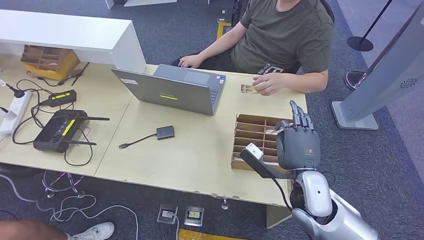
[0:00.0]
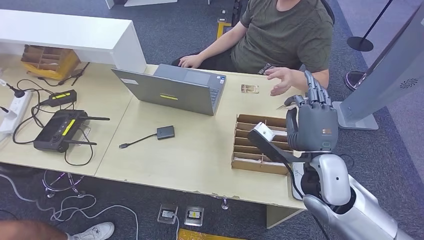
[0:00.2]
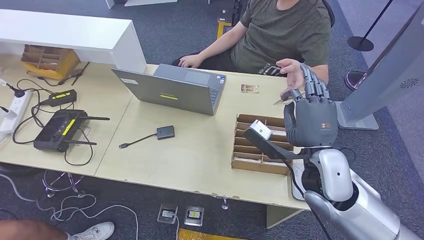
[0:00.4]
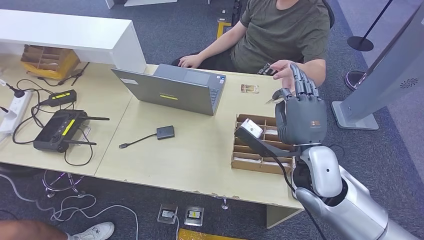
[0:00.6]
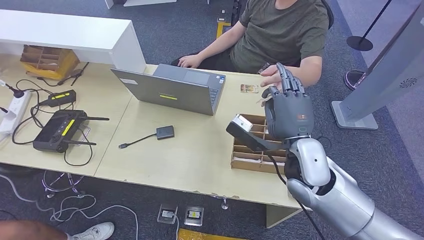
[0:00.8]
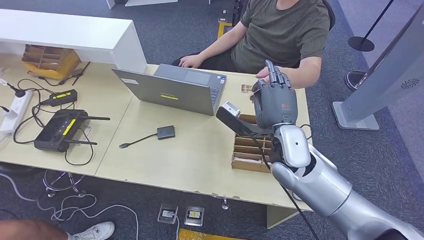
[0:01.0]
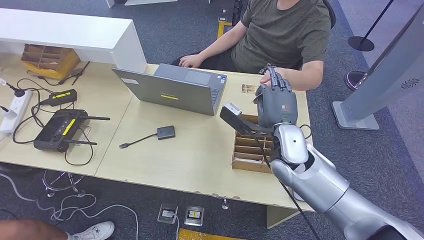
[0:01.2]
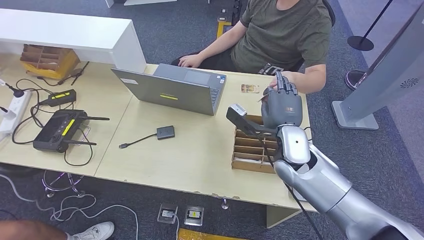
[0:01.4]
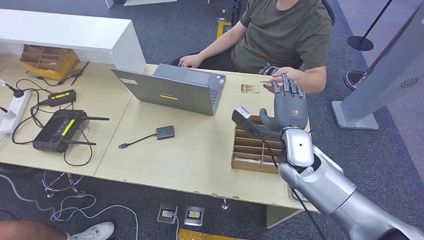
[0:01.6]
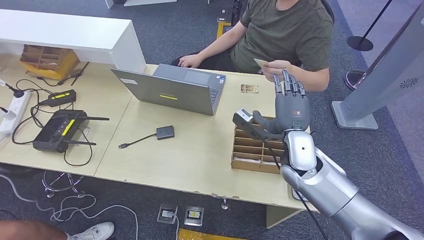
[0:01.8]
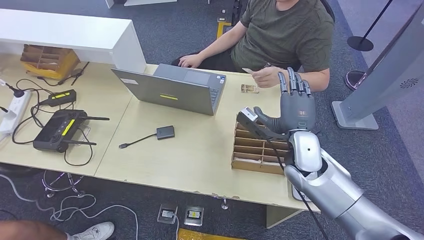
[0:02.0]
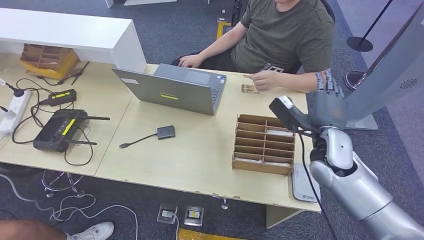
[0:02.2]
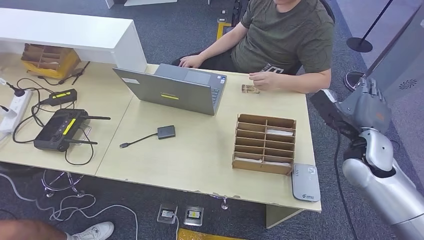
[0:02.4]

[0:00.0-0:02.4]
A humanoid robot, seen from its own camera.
Step, 0:00.4 to 0:02.4: Hand the room key to the person.
0:00.0 to 0:01.2: The right hand is displaced forward, to the left and upward by some 10 cm.
0:01.2 to 0:02.4: The right hand moves to the right, some 20 cm.

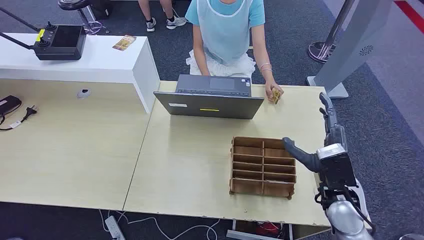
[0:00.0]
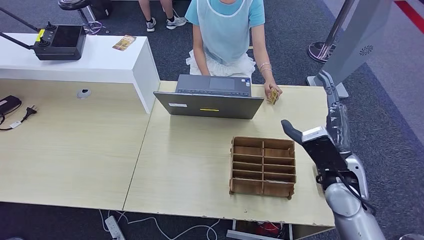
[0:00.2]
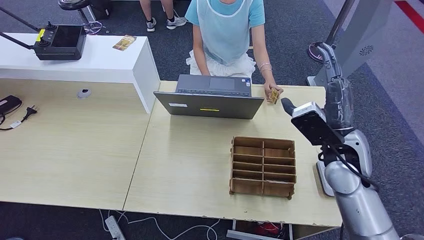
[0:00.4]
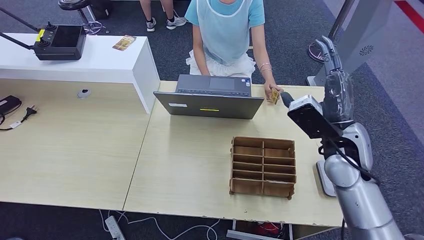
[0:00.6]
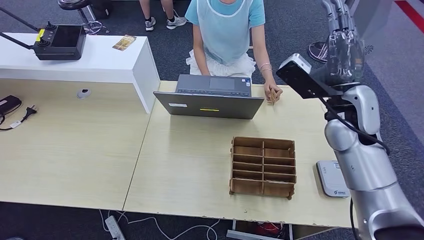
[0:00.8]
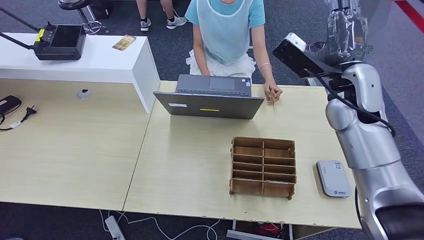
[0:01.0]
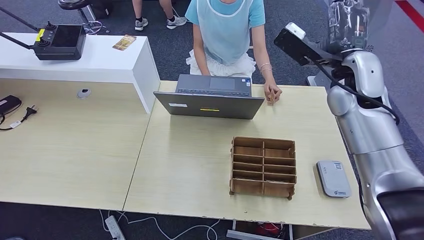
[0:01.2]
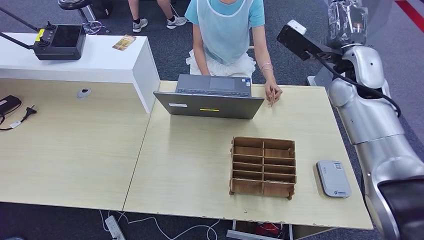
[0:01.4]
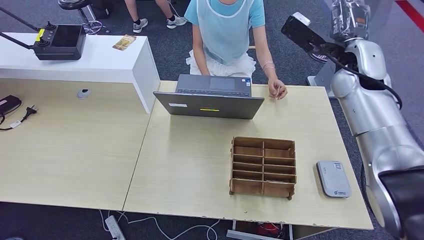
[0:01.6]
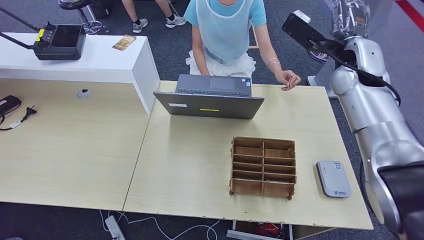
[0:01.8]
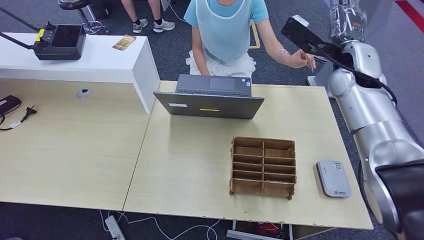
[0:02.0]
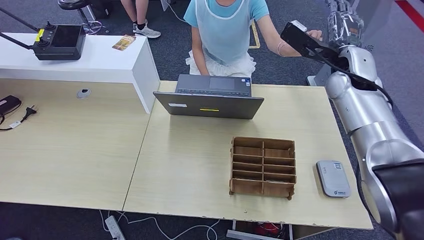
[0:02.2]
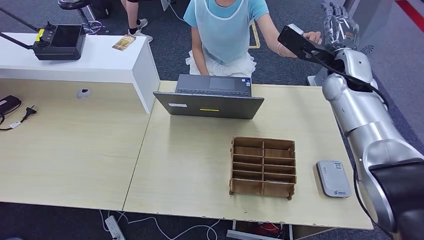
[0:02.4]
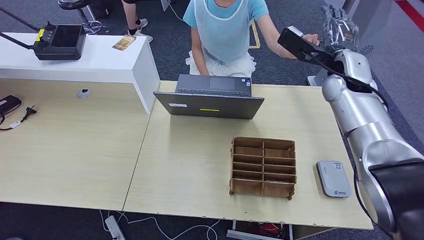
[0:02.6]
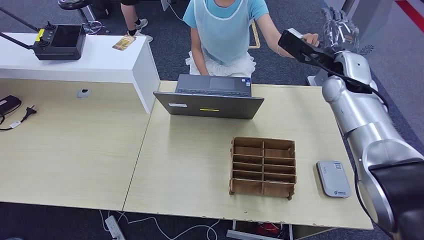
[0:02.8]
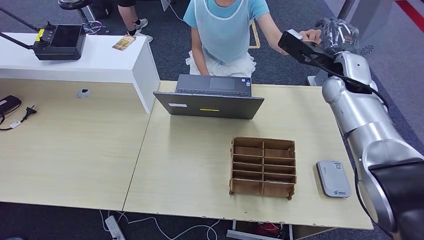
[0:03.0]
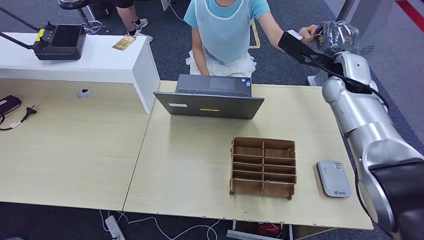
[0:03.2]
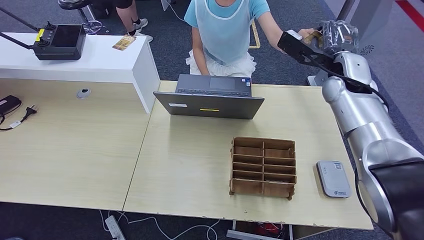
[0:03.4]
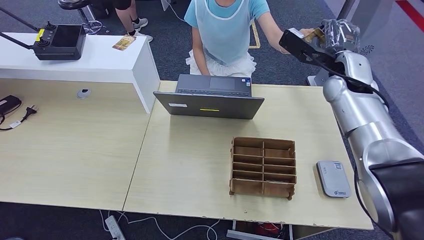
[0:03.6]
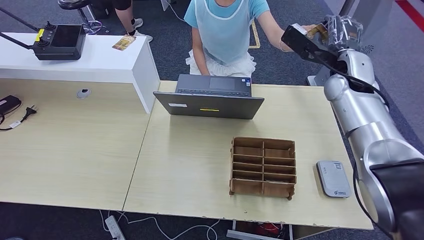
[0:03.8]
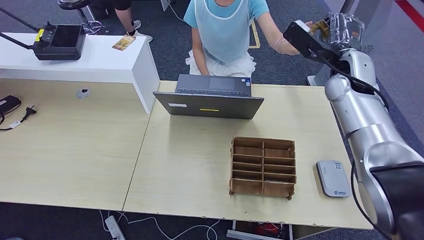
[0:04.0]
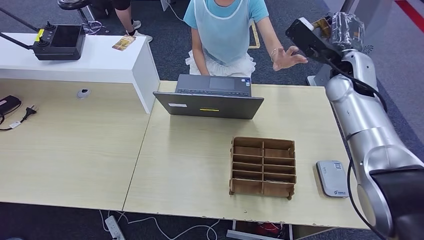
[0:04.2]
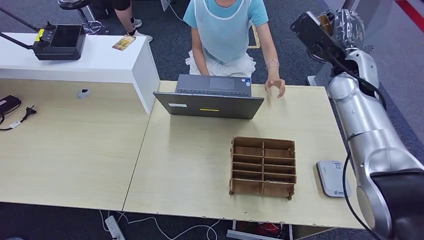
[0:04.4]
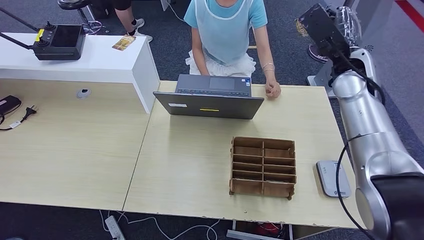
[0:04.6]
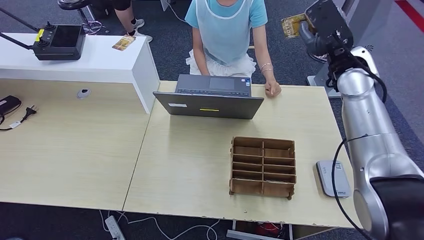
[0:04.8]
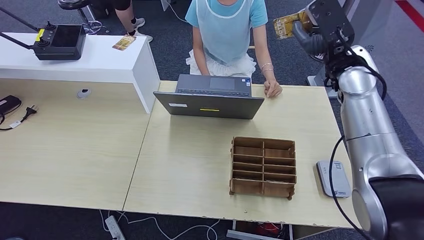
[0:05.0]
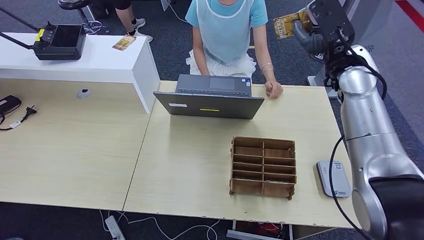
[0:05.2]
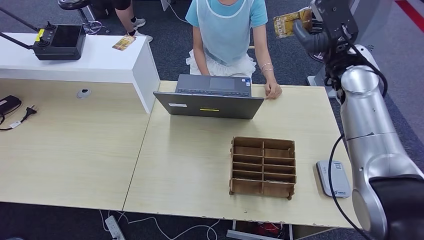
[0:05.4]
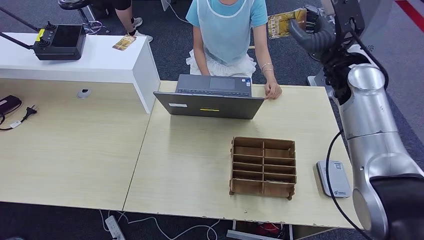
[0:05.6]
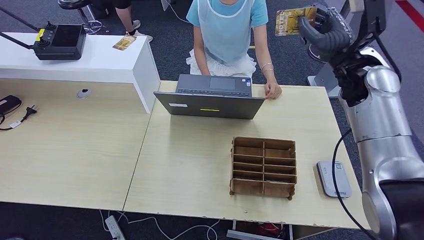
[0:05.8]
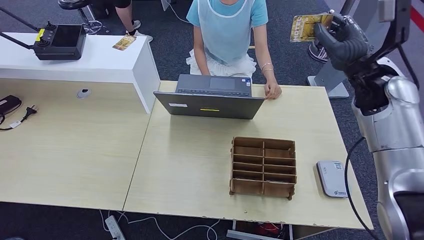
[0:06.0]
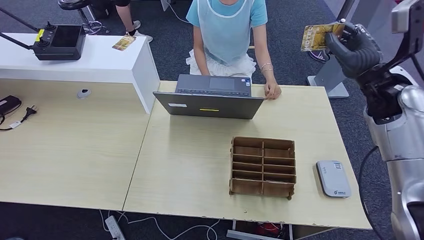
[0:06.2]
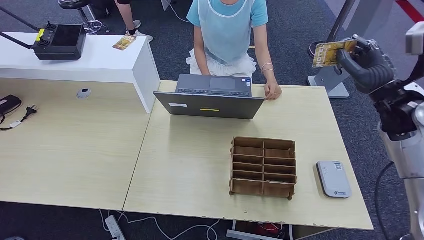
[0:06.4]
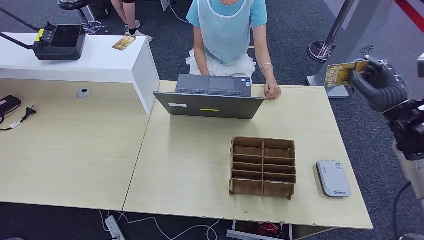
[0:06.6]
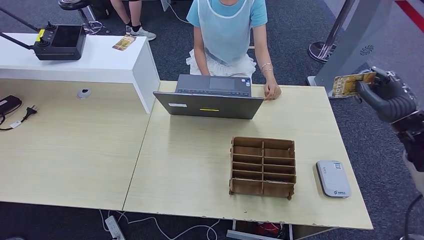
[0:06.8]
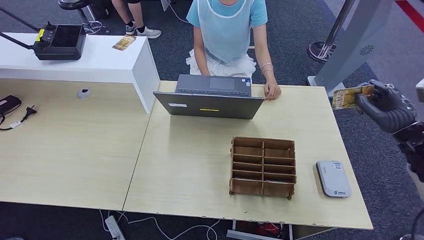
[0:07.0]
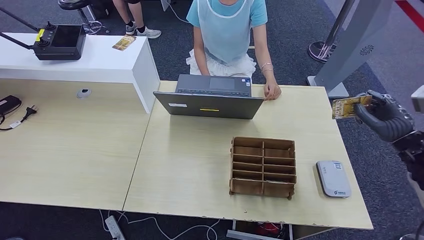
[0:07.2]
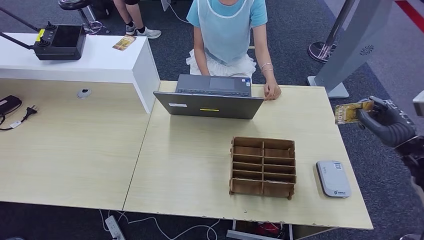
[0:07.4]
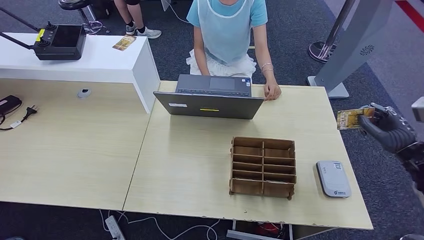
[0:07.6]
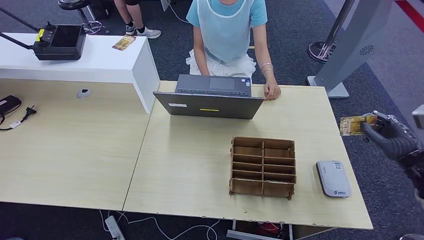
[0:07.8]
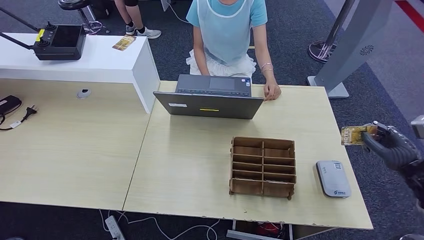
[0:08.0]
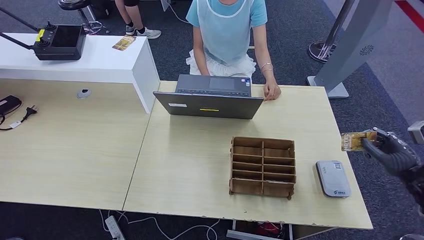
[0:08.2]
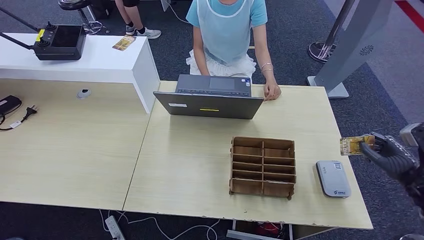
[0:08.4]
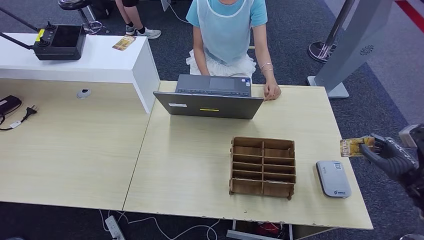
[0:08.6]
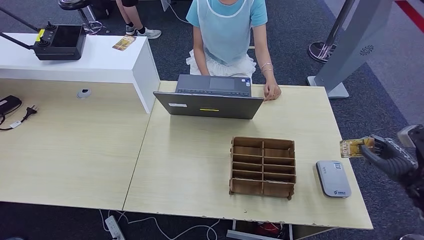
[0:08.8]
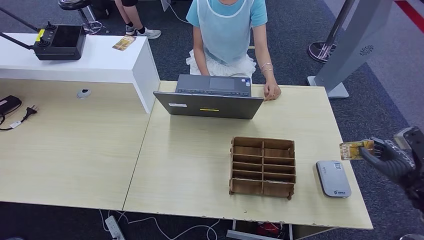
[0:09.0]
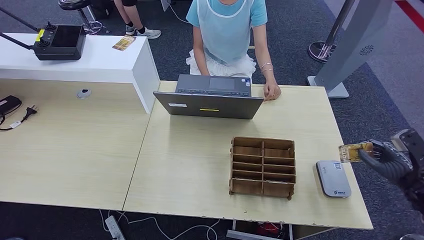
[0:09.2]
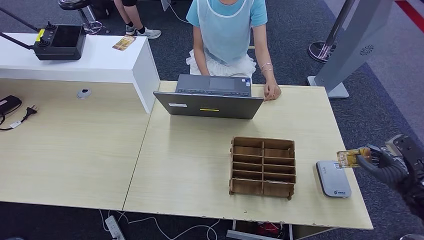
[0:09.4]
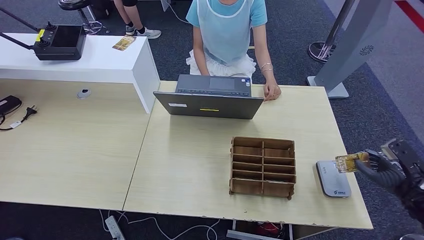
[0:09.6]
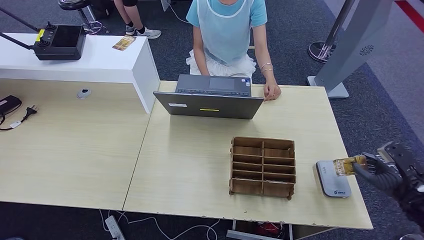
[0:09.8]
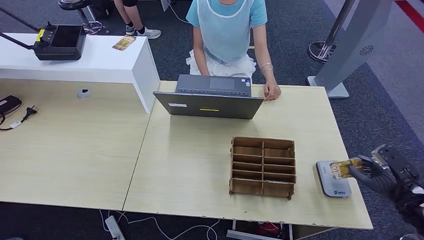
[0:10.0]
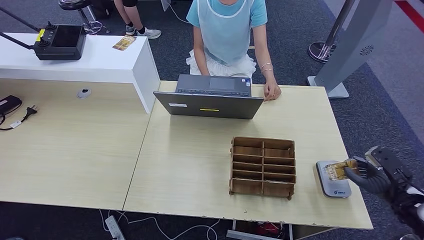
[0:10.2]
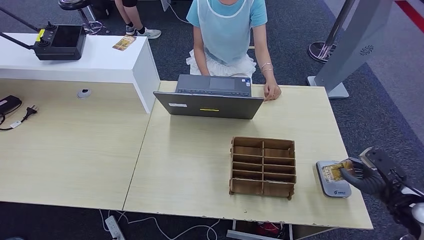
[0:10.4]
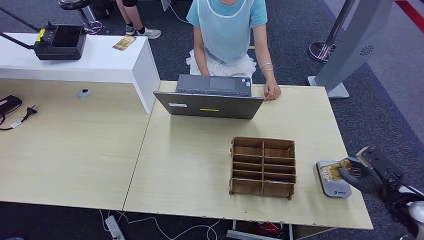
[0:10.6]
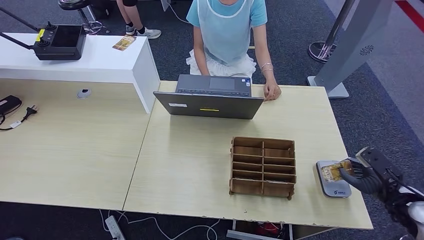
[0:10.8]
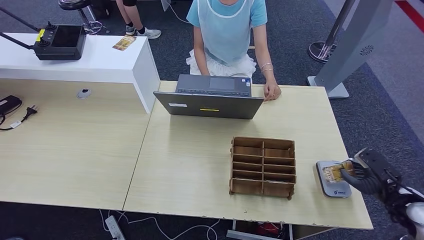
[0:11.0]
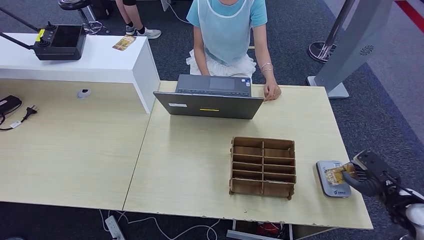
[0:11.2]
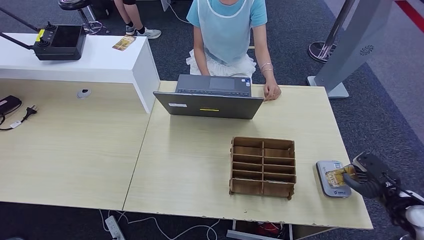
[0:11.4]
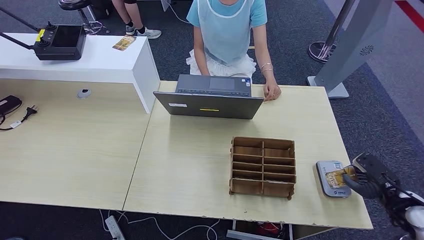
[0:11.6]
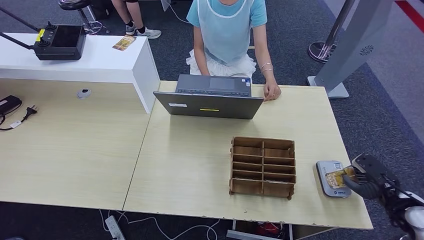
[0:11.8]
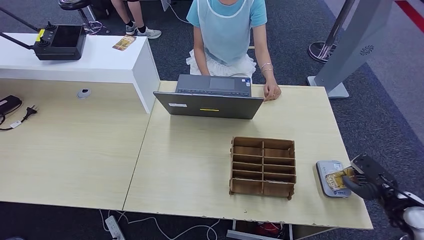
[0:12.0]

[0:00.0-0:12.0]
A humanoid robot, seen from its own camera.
Step, 0:00.0 to 0:05.0: Take the ID card from the person's hand.
0:01.6 to 0:03.0: There are only small adjustments of the hands.
0:06.0 to 0:07.6: The right hand moves to the right, downward and backward, approximately 25 cm.
0:07.6 to 0:09.0: The right hand travels downward by roughly 5 cm.
0:09.0 to 0:10.4: The right hand ends up about 5 cm from where it was.
0:10.4 to 0:12.0: The hands make only small movements.

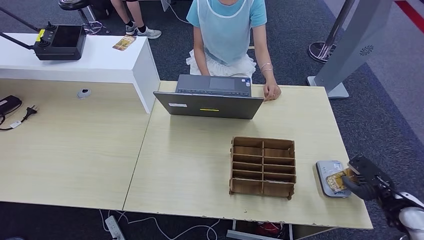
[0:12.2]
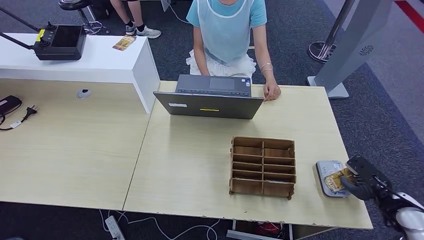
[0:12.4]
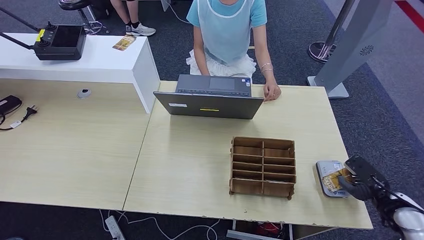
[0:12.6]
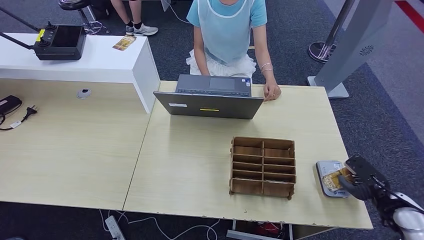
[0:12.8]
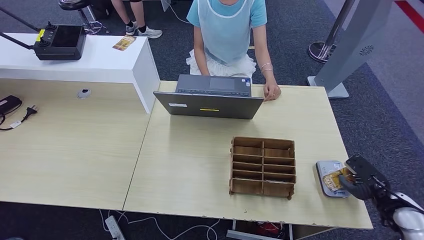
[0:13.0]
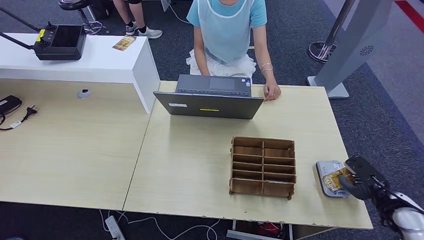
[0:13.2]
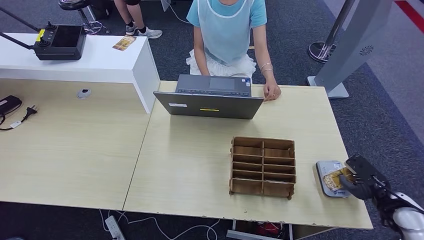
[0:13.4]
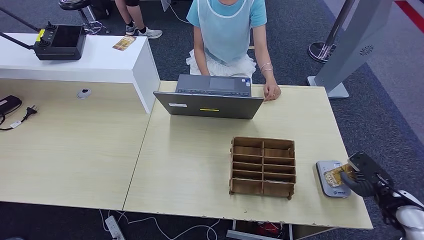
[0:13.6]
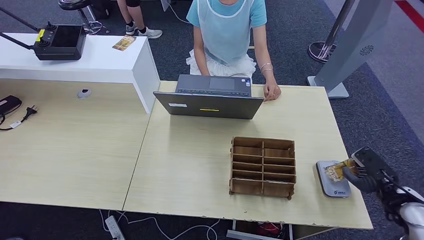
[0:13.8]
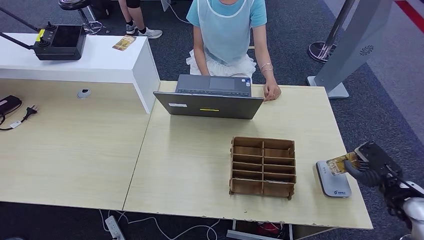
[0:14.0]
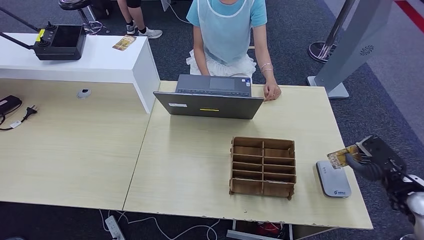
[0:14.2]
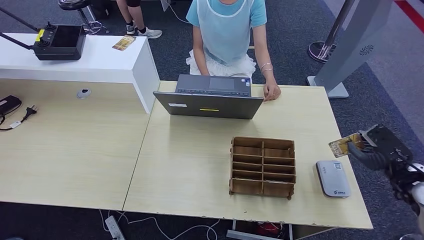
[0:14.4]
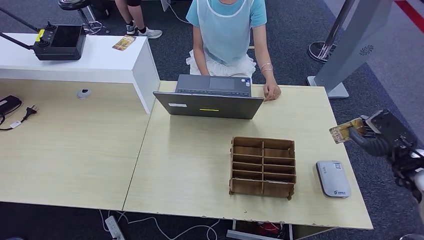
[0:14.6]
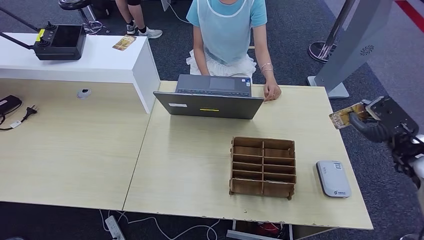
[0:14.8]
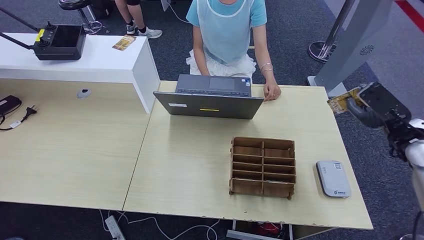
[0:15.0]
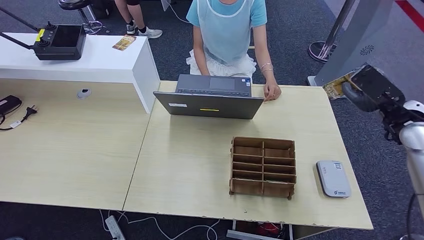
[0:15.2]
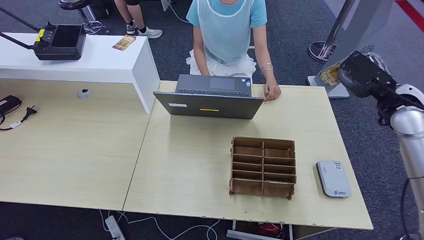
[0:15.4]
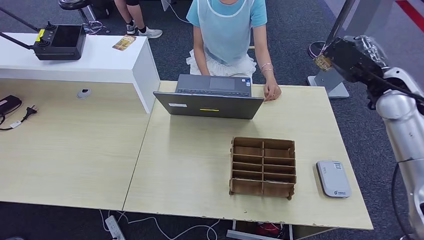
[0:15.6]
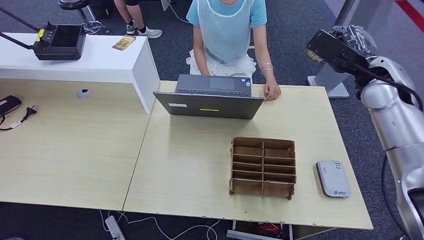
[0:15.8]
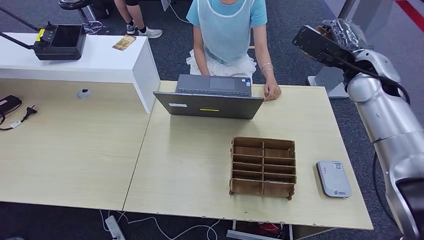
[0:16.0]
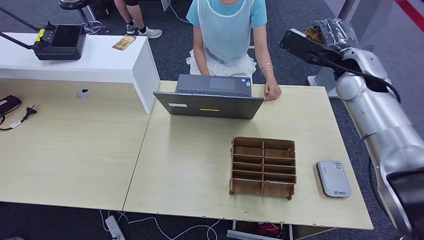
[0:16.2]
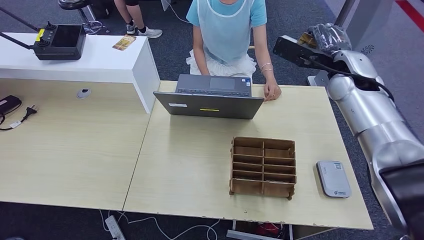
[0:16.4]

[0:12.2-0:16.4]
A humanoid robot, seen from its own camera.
0:12.2 to 0:13.6: Neither hand changes place.
0:13.6 to 0:15.0: The right hand goes about 20 cm upward and forward.
0:15.0 to 0:16.4: The right hand shifts about 20 cm to the left, forward and upward.